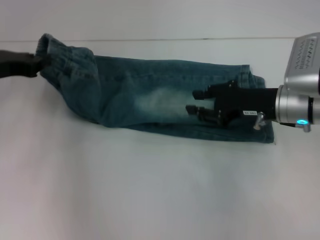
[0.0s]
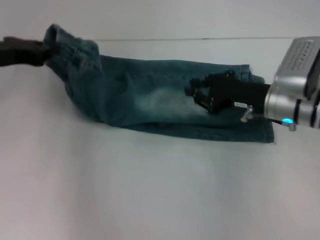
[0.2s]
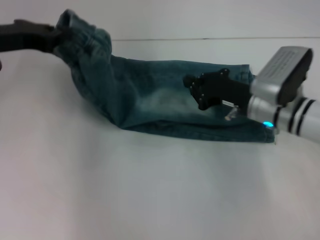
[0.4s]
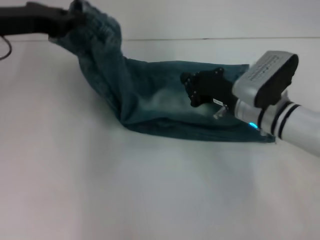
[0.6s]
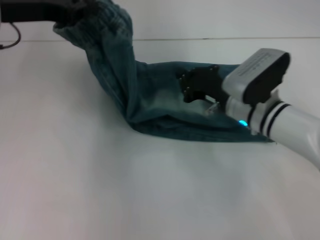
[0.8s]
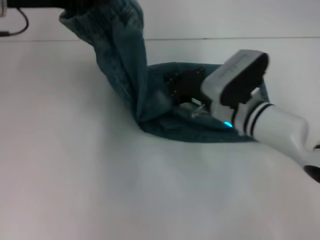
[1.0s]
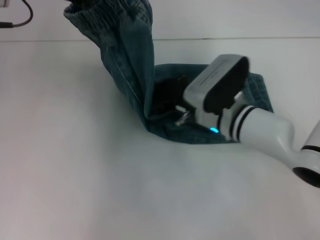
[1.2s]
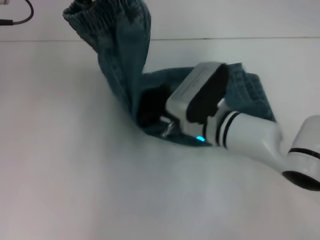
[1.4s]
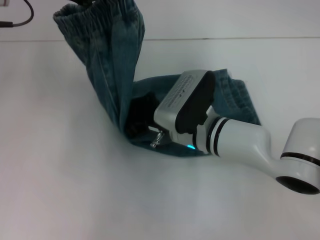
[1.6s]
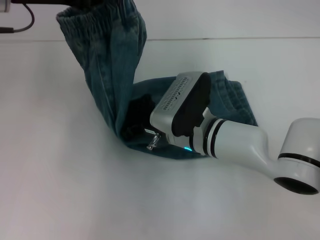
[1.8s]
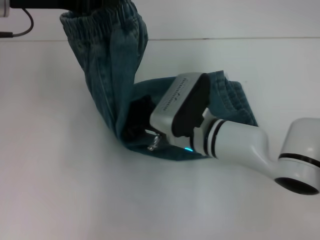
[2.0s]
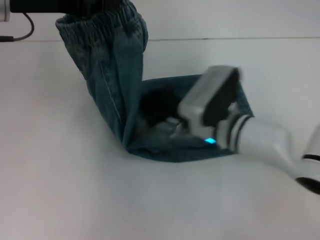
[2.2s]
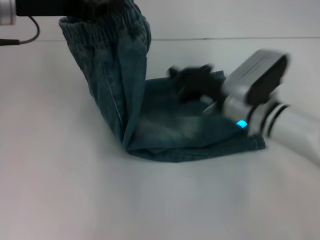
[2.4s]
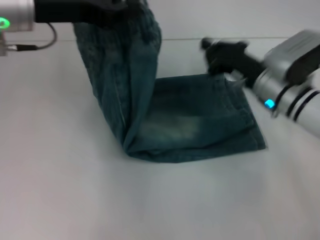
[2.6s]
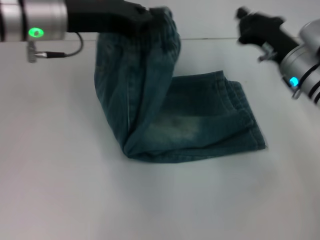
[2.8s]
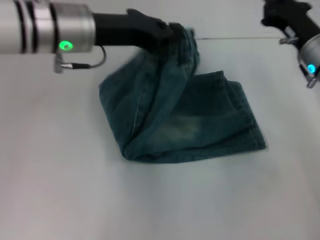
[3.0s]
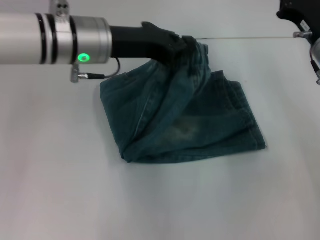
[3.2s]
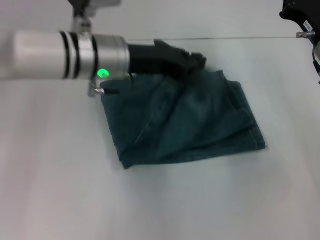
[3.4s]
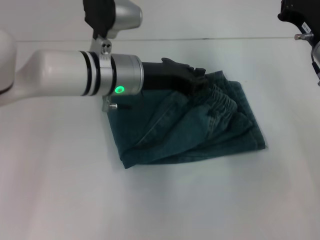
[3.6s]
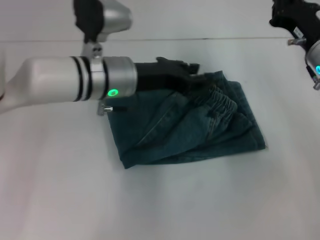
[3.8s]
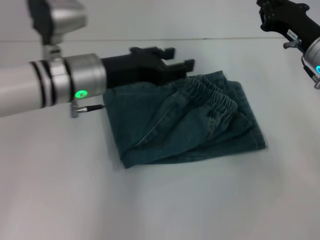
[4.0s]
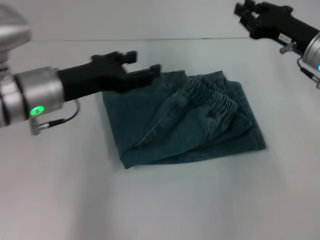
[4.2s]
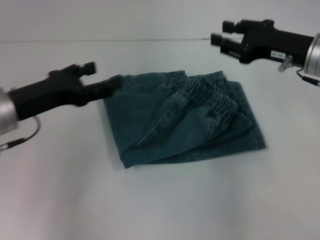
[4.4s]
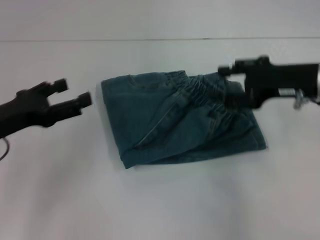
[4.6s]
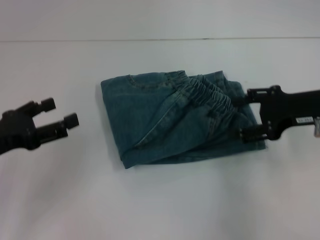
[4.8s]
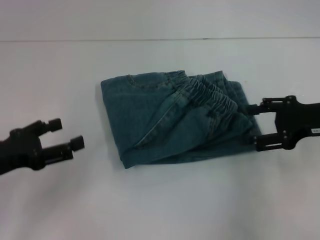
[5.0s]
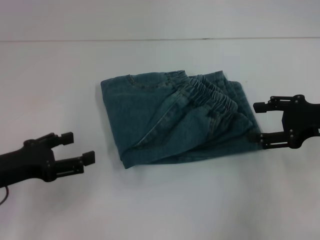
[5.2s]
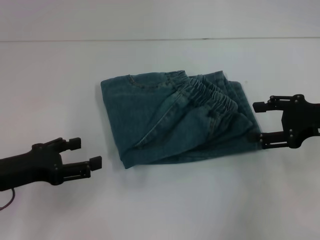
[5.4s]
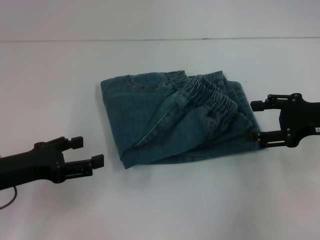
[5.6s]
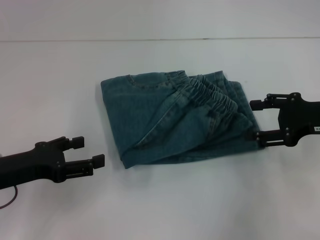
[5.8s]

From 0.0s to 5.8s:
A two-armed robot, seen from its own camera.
Step, from 0.0s to 2.0s: Press the middle of the pants with your right hand.
Step, from 2.2s to 3.8s: Fold to the right with your left hand.
From 0.0s to 1.4s: The left gripper goes roughly 15 cm upward and to the right, while the right gripper shifts approximately 15 cm to the left, and closes up.
From 1.4s to 2.8s: The right gripper is displaced to the right by roughly 15 cm, while the left gripper travels to the right by some 5 cm.
From 2.8s to 4.4s: The right gripper shifts roughly 5 cm upward; the left gripper moves downward, backward and to the left, approximately 15 cm, and opens its fingers.
From 4.4s to 5.8s: The left gripper heads backward, covering about 5 cm. The right gripper heads backward and to the right, covering approximately 10 cm, and opens.

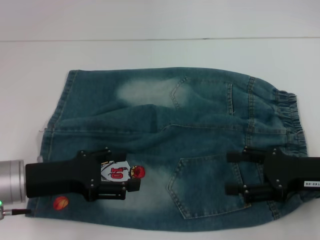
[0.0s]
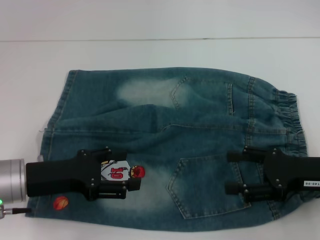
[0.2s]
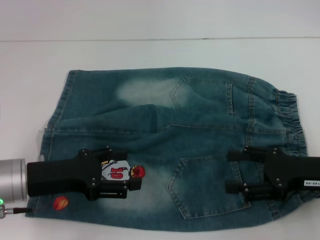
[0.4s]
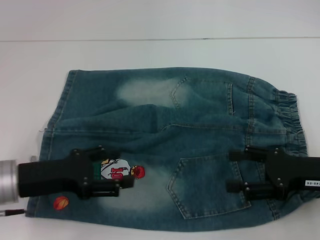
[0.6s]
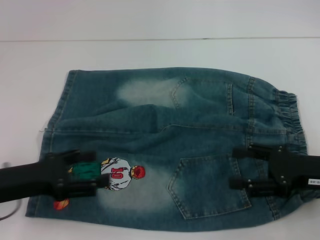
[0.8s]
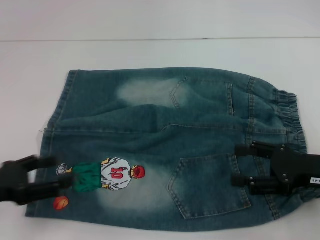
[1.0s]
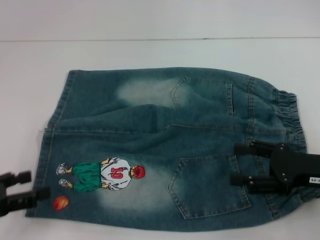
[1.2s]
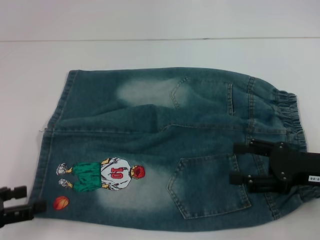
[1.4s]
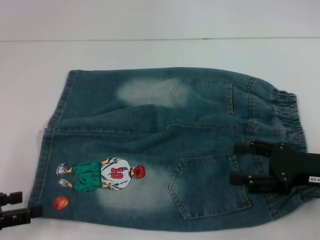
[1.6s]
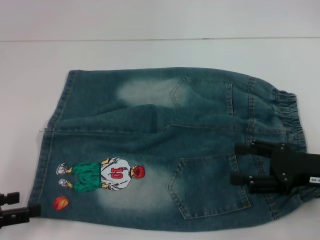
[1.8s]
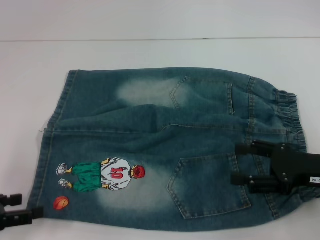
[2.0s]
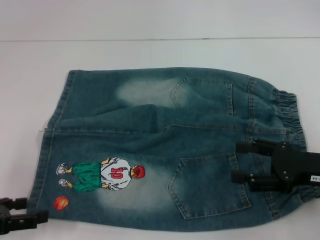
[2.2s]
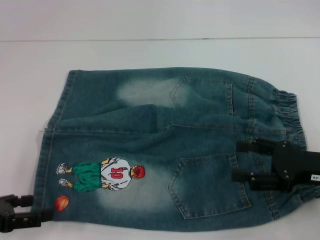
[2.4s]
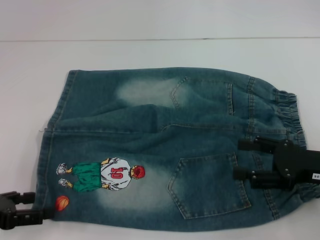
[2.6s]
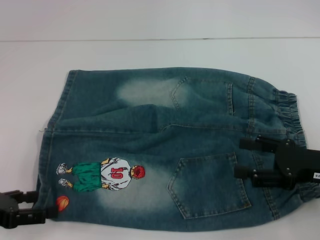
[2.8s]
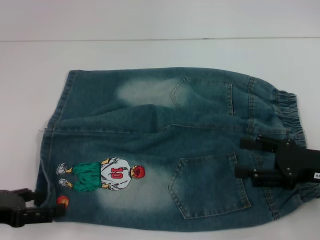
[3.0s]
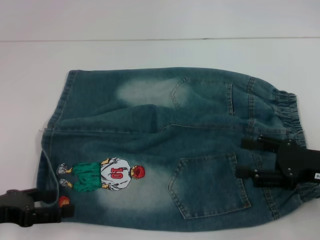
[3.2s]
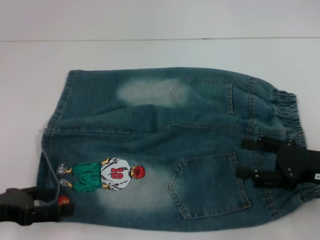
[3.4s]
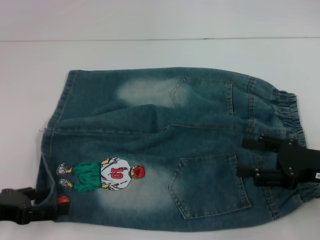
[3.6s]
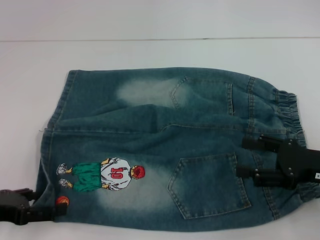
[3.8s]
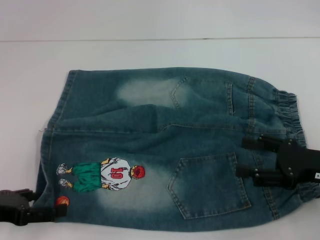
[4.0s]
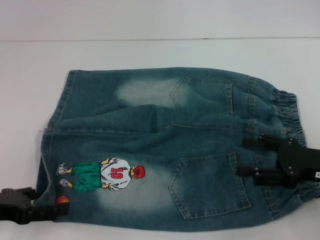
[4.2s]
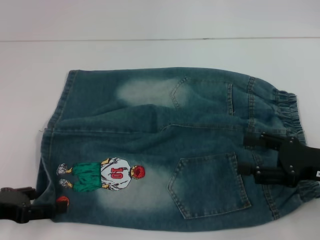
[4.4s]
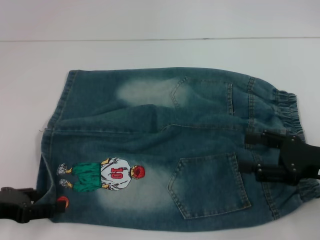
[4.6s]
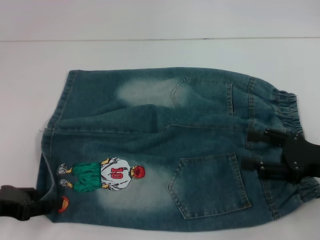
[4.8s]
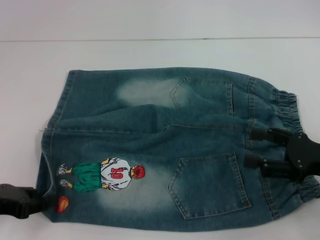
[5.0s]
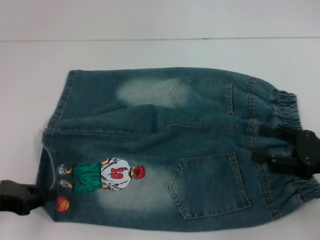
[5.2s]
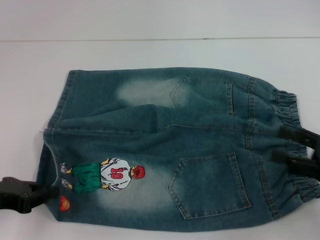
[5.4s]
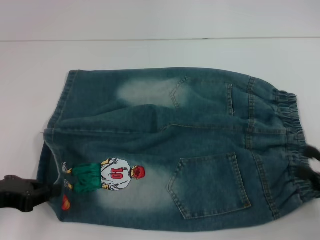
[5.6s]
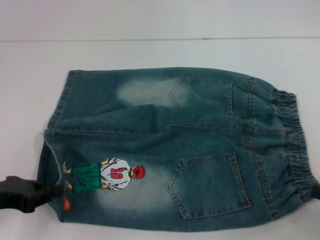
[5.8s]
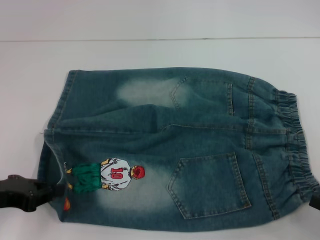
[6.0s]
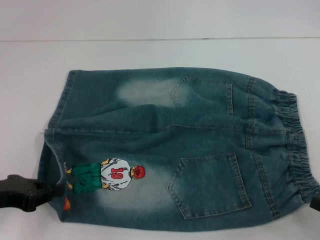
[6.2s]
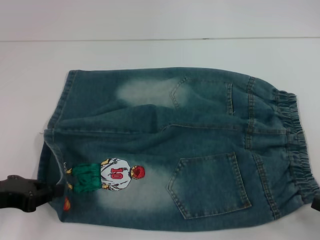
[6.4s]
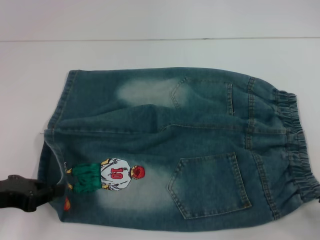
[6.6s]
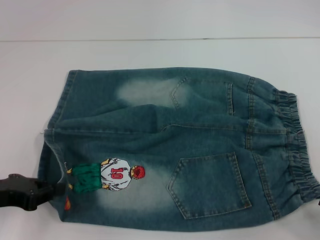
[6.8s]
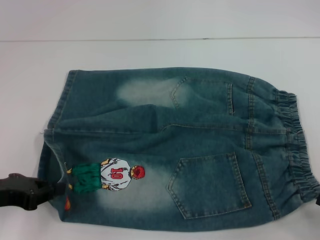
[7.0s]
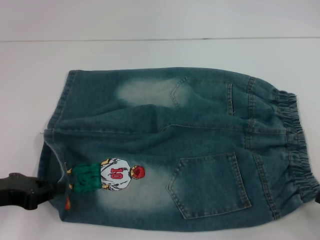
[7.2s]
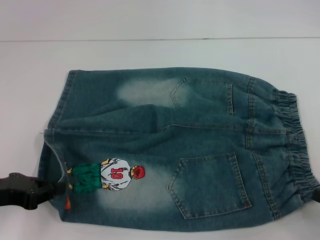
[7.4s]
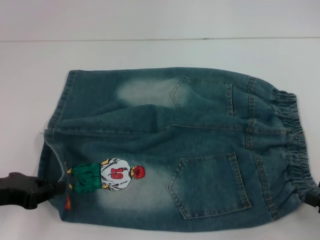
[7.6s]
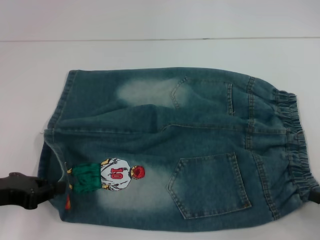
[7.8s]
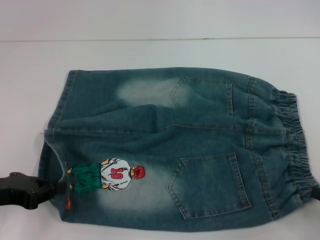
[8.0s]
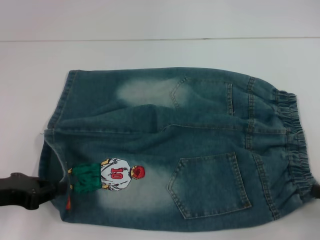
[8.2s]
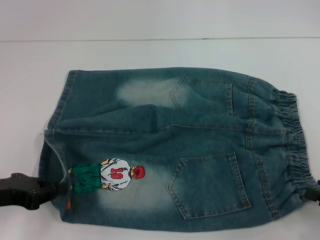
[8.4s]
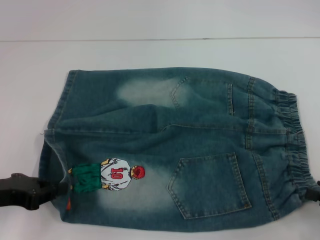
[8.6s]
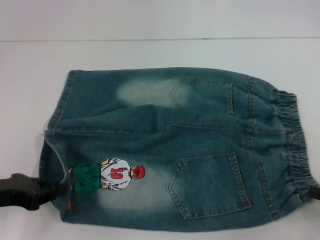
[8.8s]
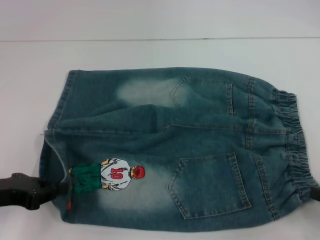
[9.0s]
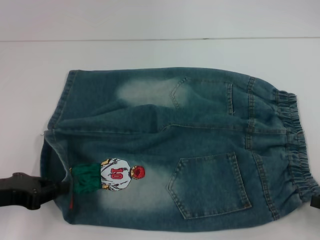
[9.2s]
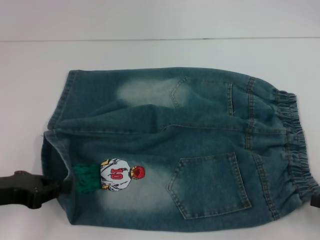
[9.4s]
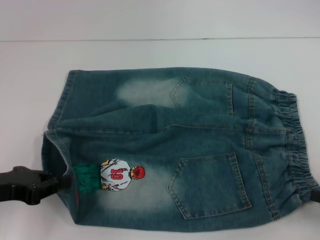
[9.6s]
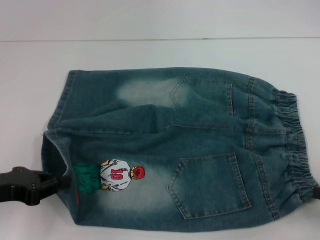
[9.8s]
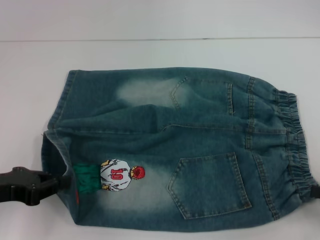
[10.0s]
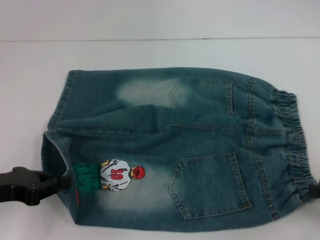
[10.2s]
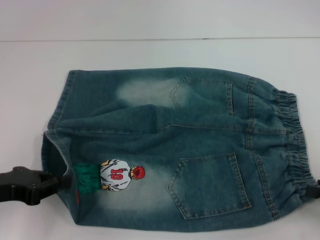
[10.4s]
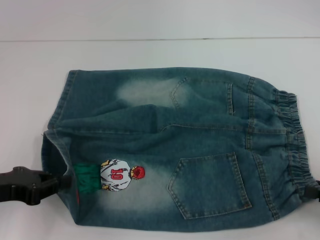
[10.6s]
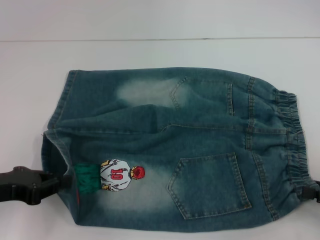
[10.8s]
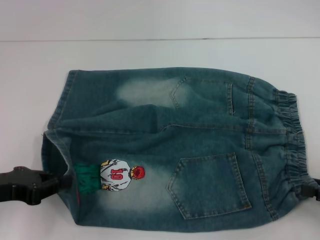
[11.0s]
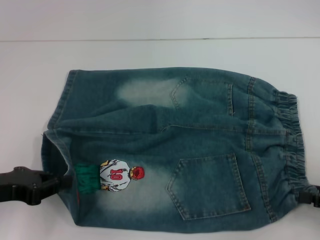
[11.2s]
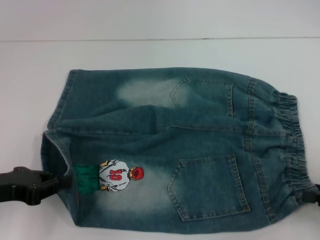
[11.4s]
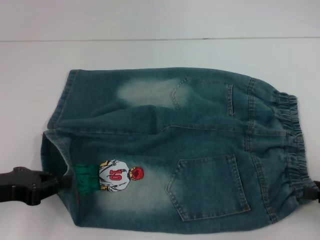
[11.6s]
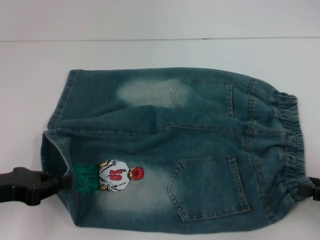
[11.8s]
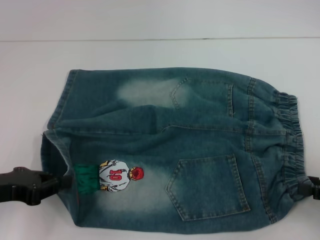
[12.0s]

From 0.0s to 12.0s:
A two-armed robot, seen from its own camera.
Step, from 0.0s to 5.0s: Grab the lower left pant leg with your left hand.
From 0.0s to 1.6s: The left gripper goes some 15 cm to the left and backward.
From 1.6s to 3.0s: The grippers move only a little.
From 3.0s to 4.4s: Neither gripper changes place.
From 4.4s to 6.0s: The right gripper heads backward and to the right, covering approximately 15 cm, while the left gripper closes up.
From 9.0s to 12.0s: The grippers make only small movements.

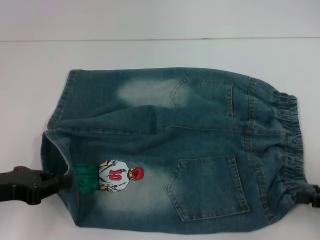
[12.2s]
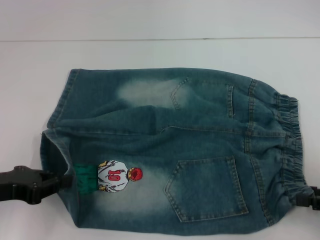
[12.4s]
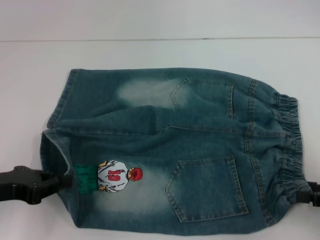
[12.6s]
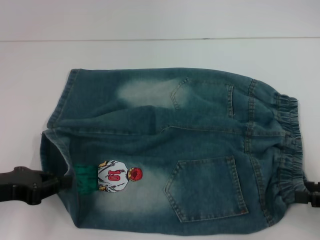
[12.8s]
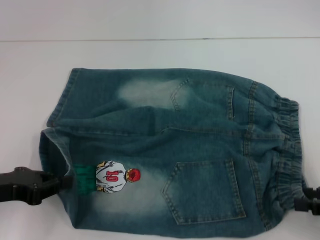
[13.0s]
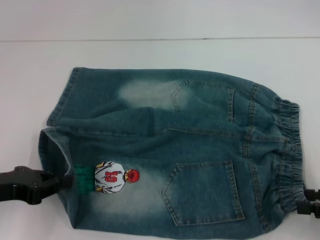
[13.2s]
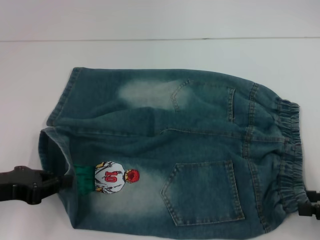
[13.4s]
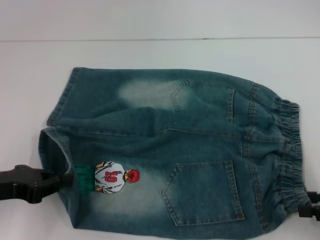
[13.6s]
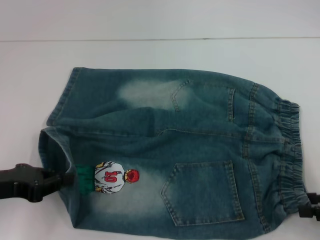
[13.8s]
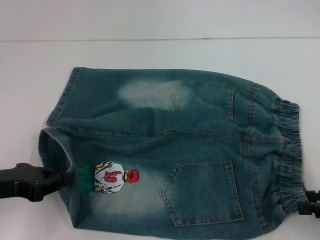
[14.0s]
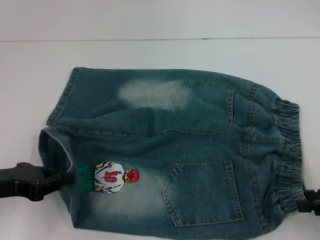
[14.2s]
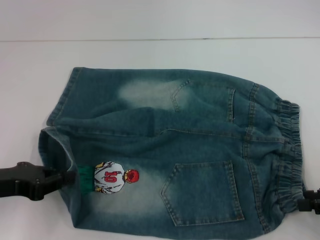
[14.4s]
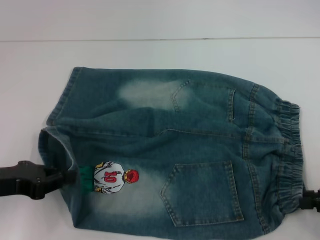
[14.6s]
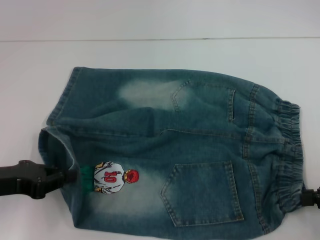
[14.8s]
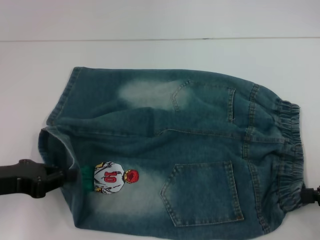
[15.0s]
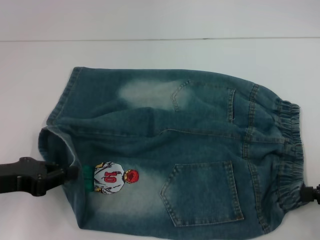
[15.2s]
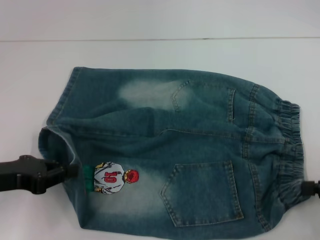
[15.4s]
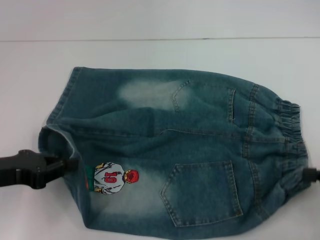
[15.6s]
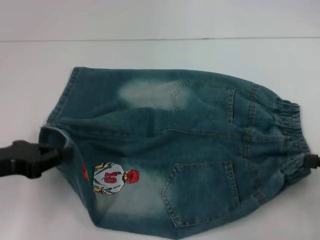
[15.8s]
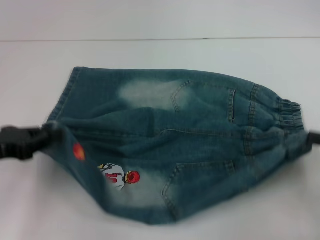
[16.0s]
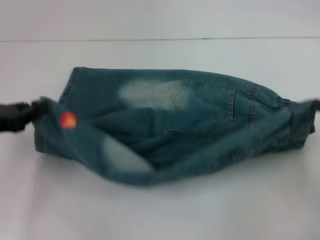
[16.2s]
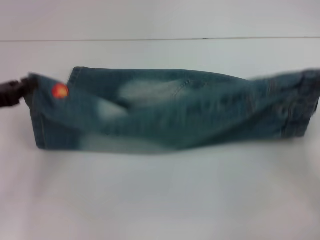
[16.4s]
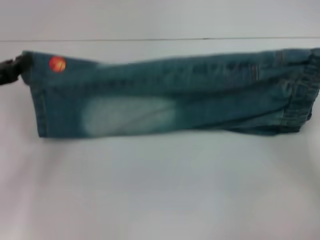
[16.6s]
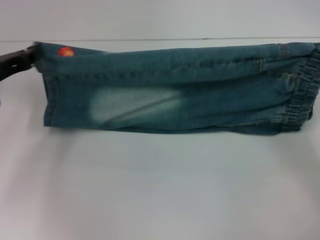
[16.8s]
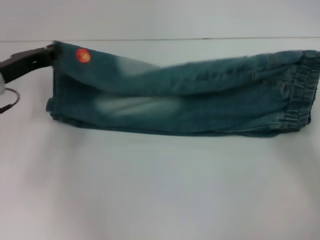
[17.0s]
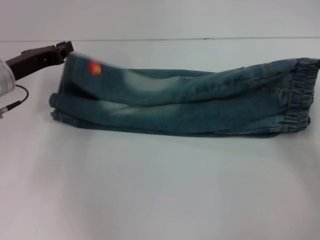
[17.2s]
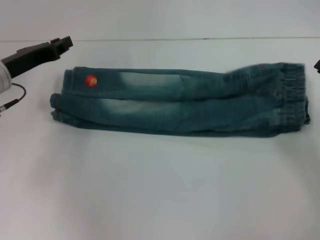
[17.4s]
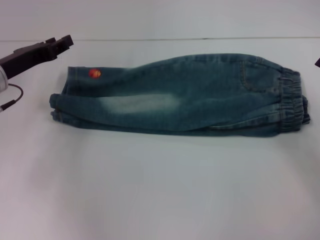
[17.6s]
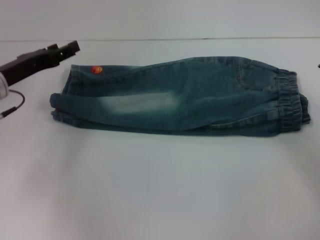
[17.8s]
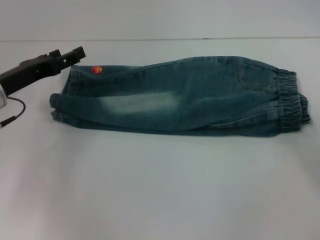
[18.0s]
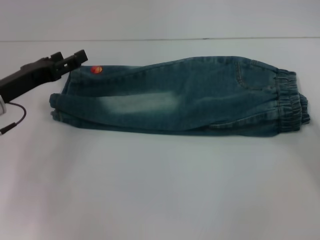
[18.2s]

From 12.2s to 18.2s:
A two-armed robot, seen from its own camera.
Step, from 12.2s to 15.0s: Hold the lower right waistband with your right hand.
Step, from 15.2s to 17.6s: Fold upward with your right hand.
From 12.2s to 13.8s: The grippers make only small movements.
From 13.8s to 15.2s: The right gripper closes up.
From 15.2s to 16.6s: Both grippers move forward, about 5 cm.
From 16.6s to 18.2s: The left gripper shifts about 5 cm to the right, and opens its fingers, while the right gripper moves about 5 cm, and opens up.
